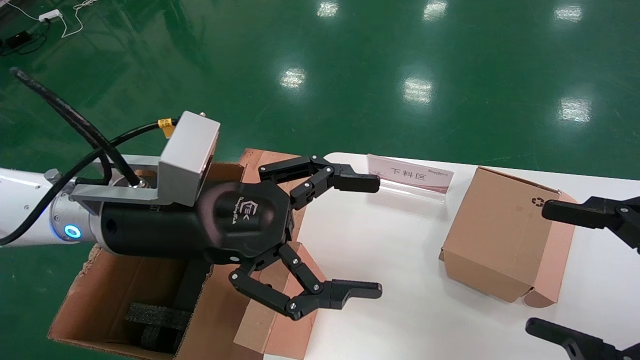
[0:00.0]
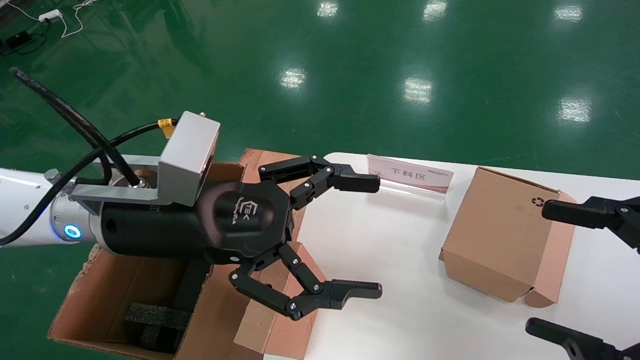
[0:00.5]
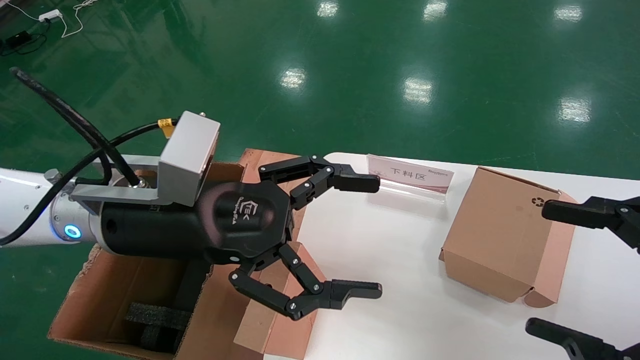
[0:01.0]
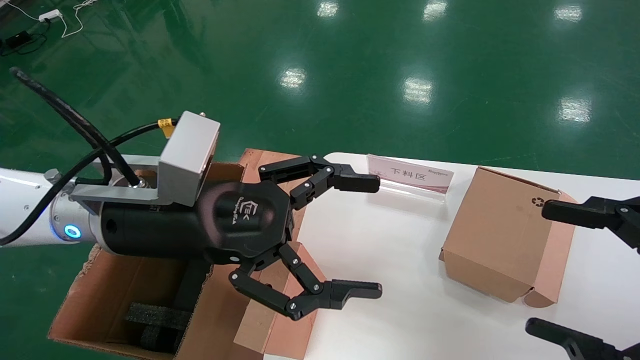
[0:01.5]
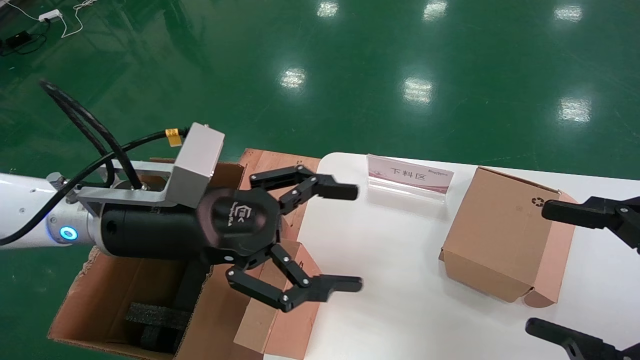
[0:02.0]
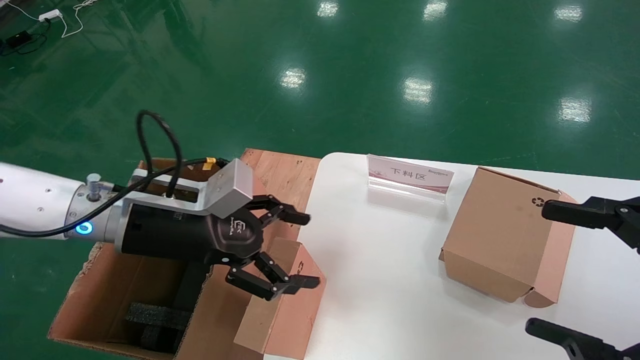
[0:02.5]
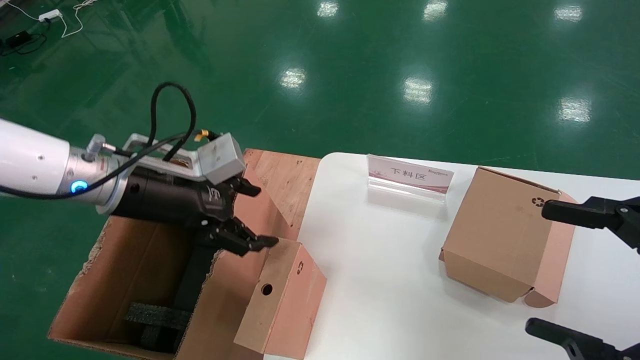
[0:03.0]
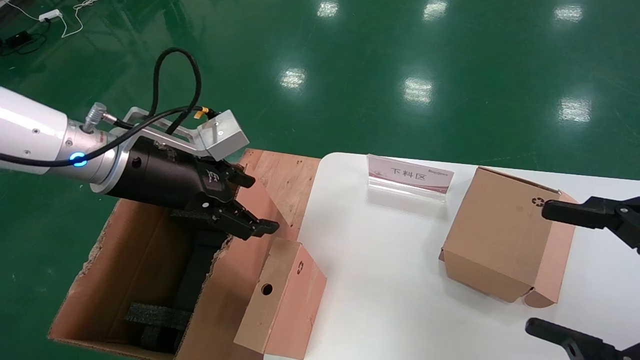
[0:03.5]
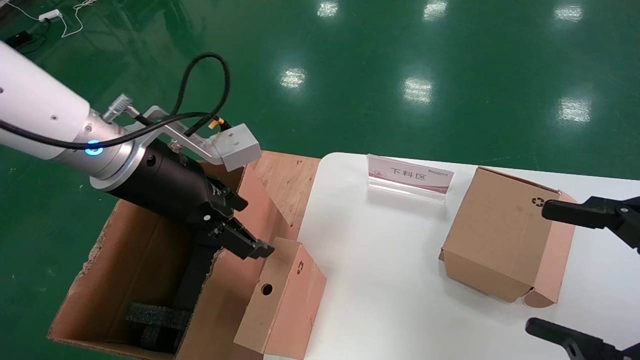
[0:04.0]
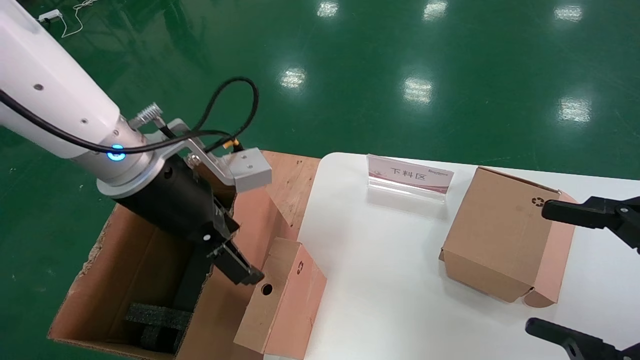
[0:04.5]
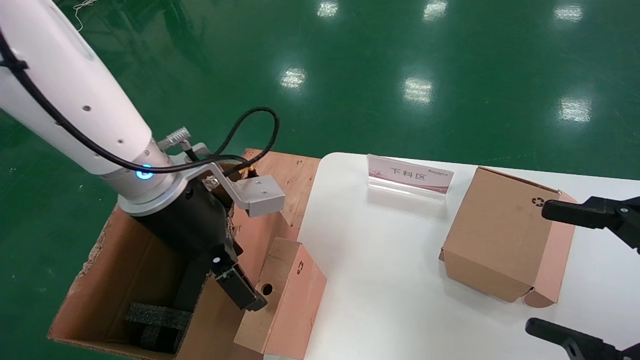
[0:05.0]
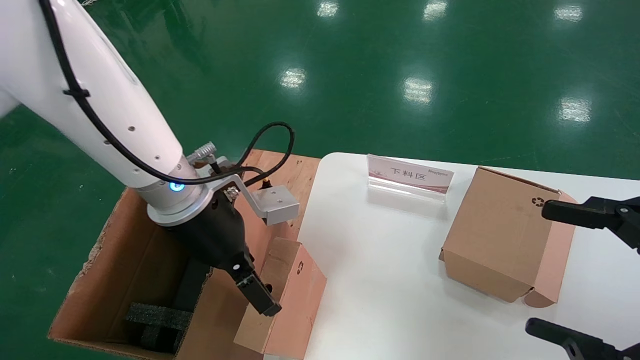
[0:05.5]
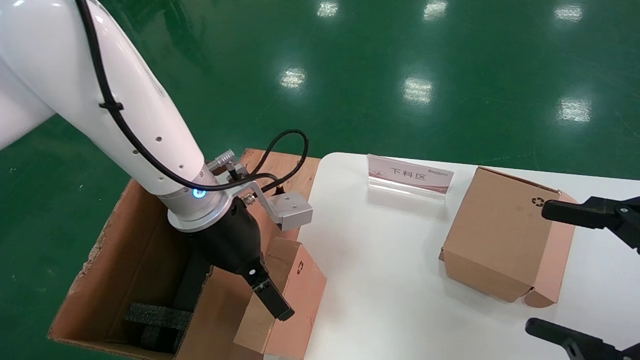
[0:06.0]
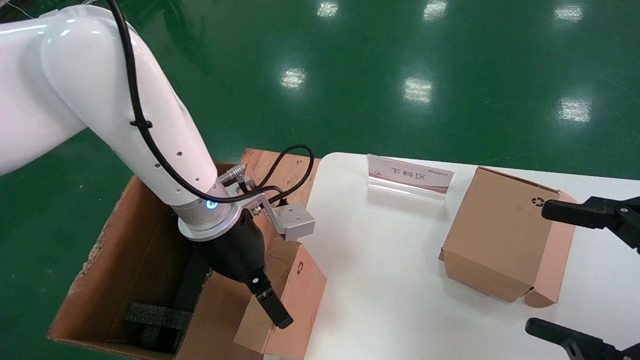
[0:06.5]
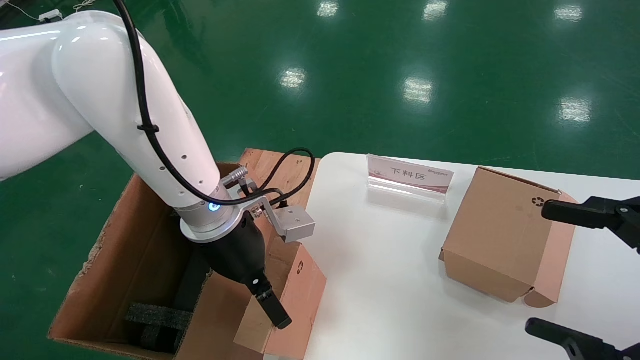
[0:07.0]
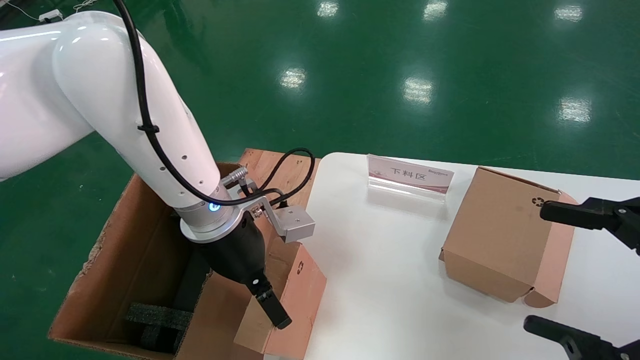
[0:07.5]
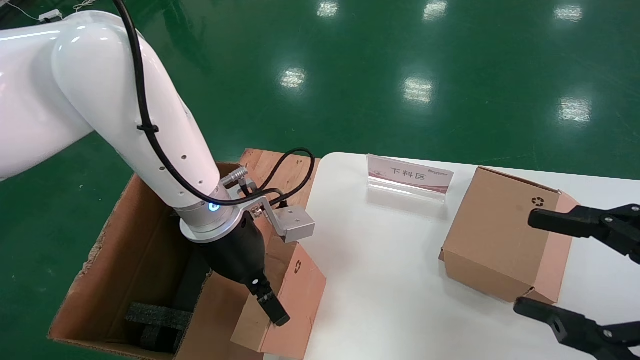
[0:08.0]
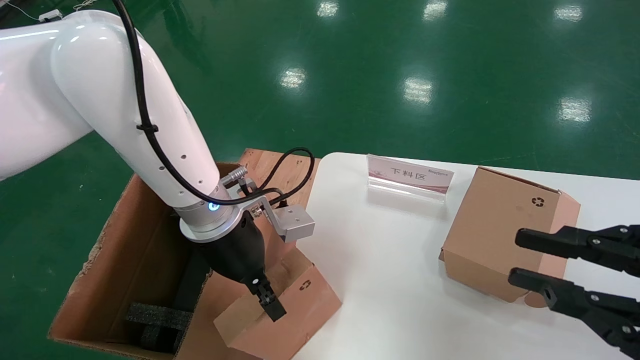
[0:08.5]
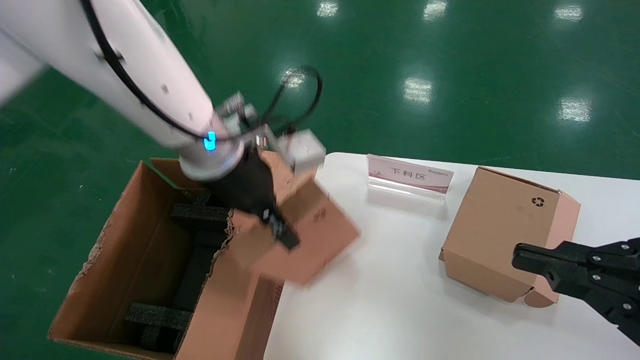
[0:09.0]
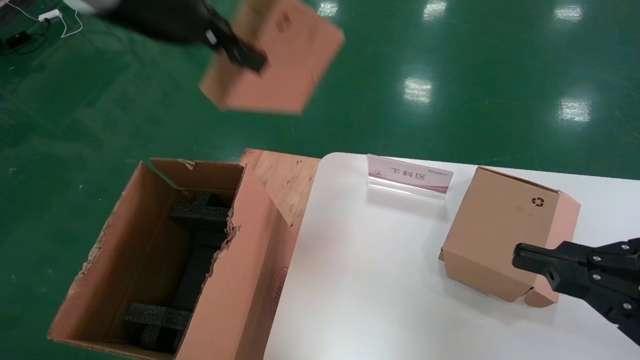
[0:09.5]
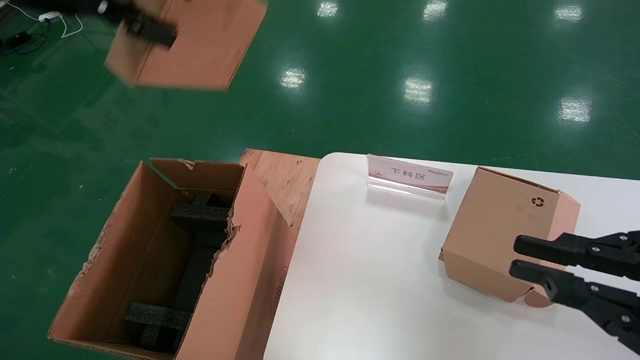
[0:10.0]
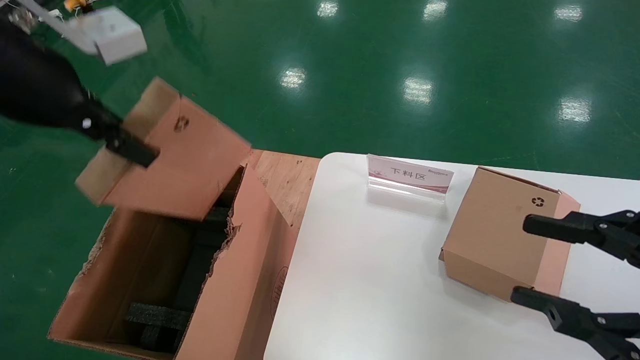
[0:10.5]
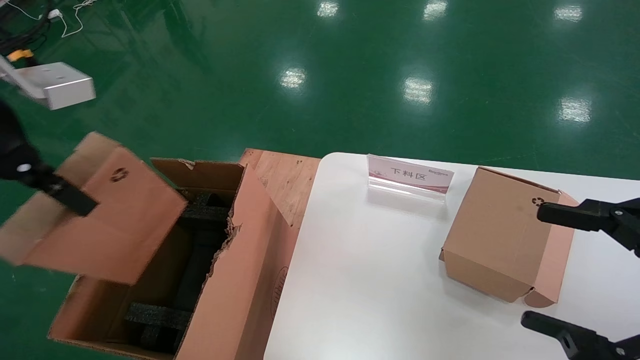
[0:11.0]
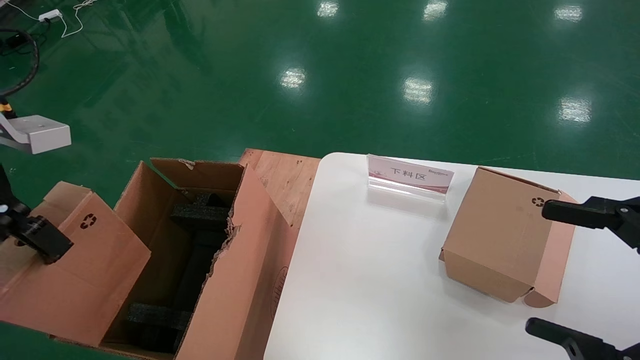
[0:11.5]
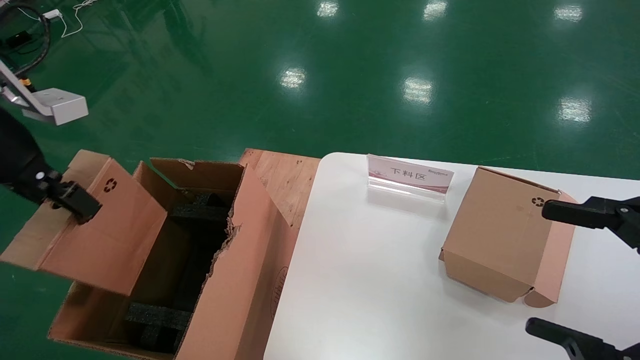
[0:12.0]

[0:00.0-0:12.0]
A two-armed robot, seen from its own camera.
Task of the whole recording: put the box on the table into the big box.
Step, 0:00.0 to 0:08.5: Grasp the paper box.
0:00.0 to 0:02.0: The grippers stay close to where they were, moving slightly.
0:02.0 to 0:04.0: The left gripper goes some 5 cm upward.
0:04.0 to 0:06.0: The left gripper goes roughly 10 cm to the right and downward.
0:06.0 to 0:08.0: The grippers make only small movements.
0:08.0 to 0:10.0: The right gripper closes its fingers. Meanwhile the left gripper shifts about 30 cm upward and to the left, and closes.
0:10.0 to 0:12.0: The right gripper opens up; the left gripper goes about 15 cm downward and to the left.

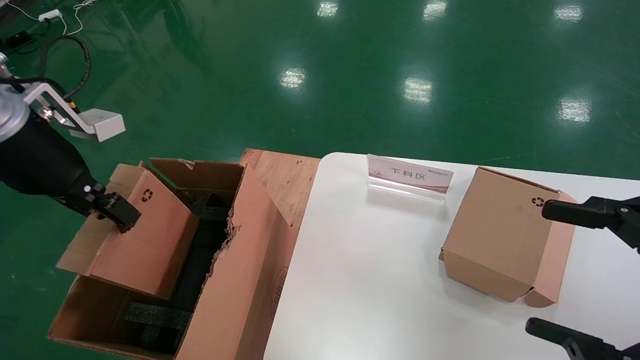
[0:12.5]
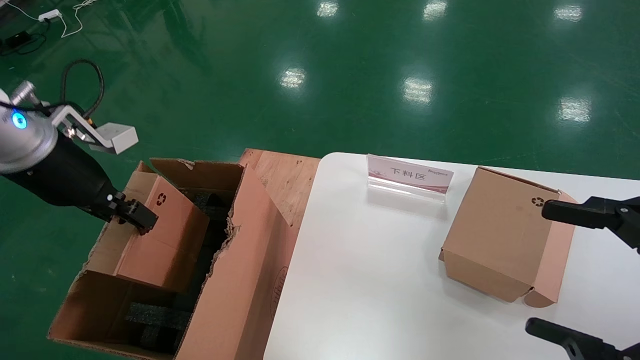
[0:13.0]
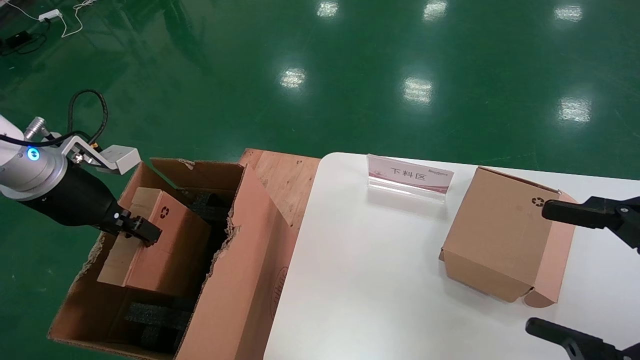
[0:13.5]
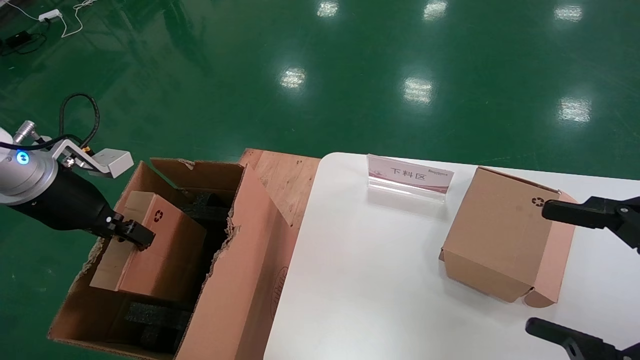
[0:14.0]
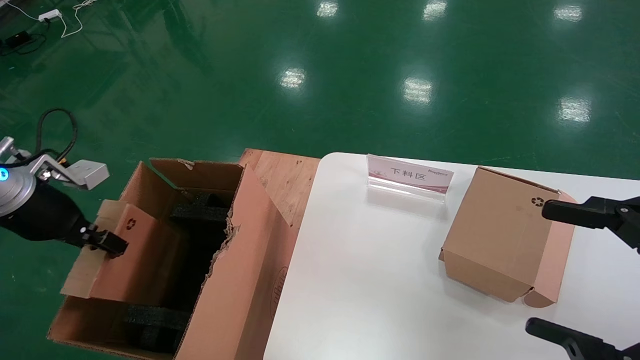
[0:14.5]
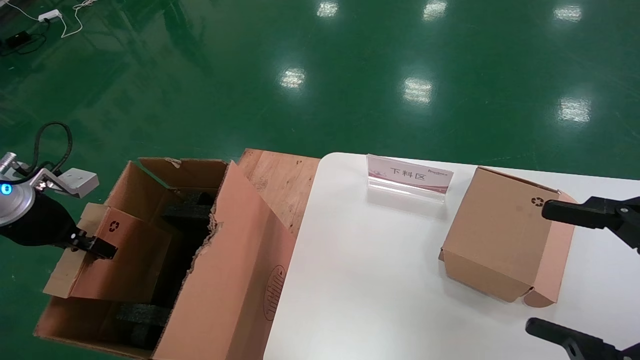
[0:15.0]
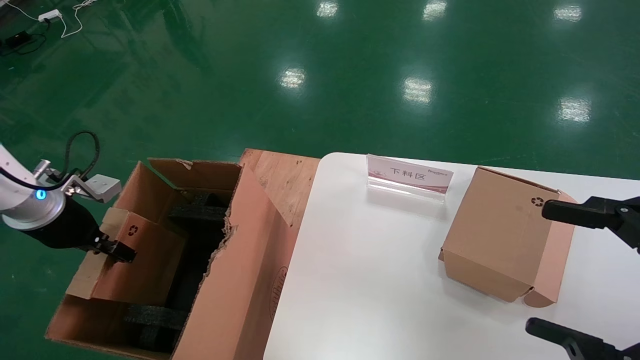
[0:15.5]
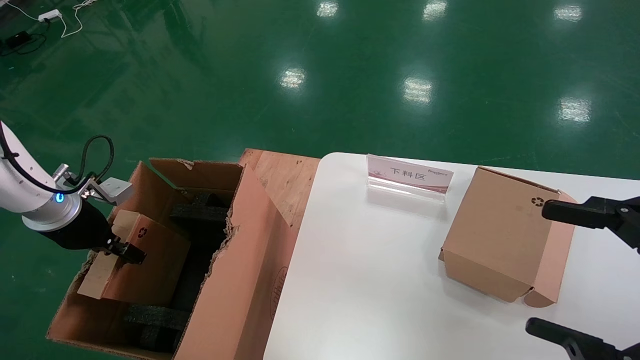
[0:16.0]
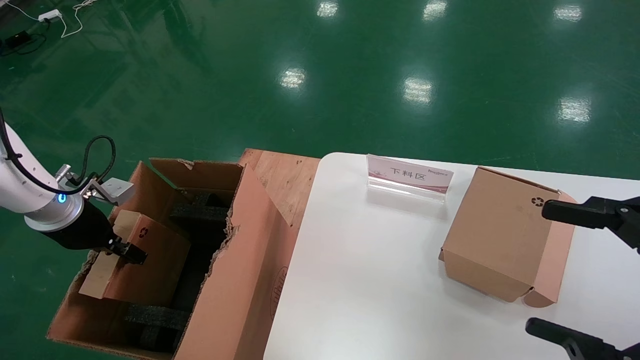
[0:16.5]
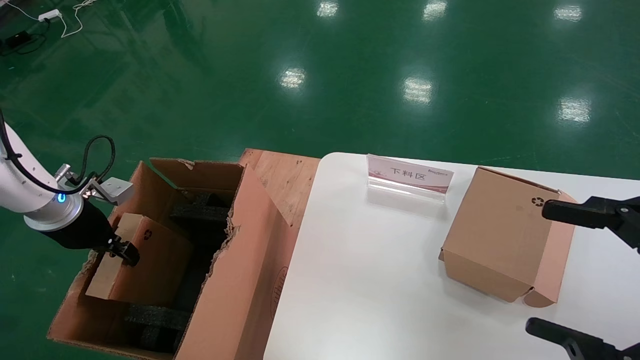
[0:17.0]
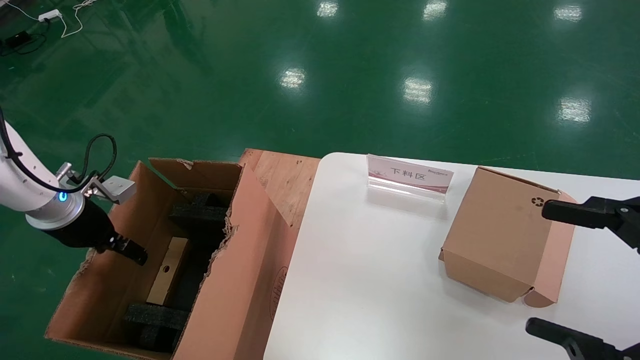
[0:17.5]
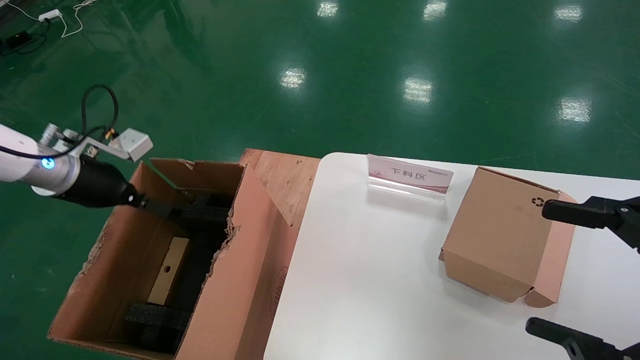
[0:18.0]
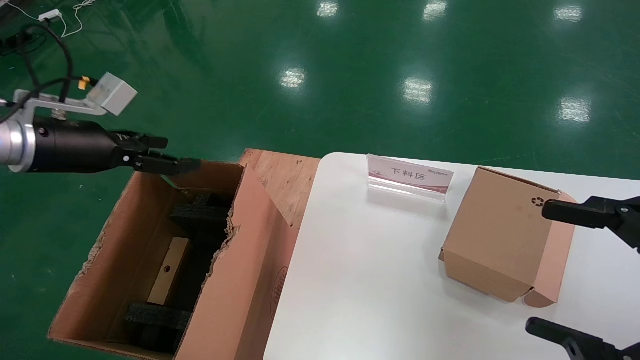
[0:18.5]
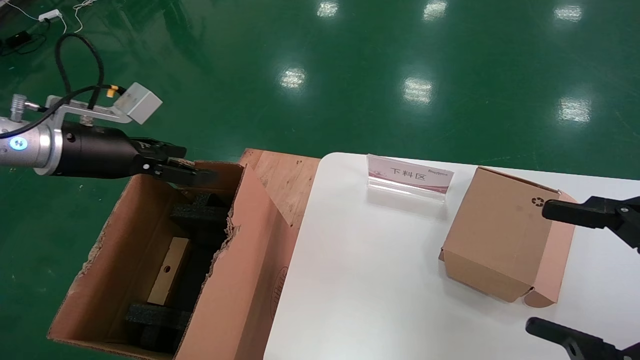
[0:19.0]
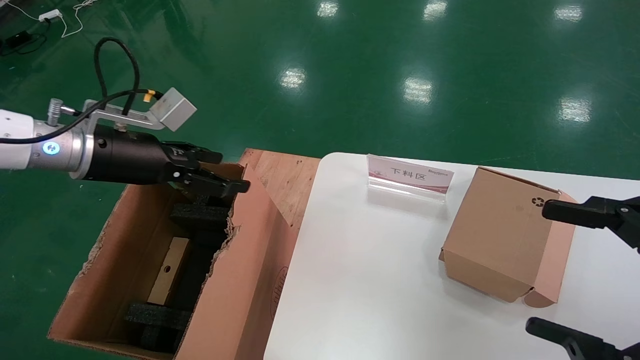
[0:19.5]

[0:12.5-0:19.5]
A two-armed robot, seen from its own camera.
Task of the whole recording: put the box on the table into the big box.
Step, 0:12.5 to 0:17.0: Place the paper box in the another big box.
0:12.5 to 0:14.5: The left gripper travels downward and to the left by roughly 15 cm.
0:14.5 to 0:16.0: The left gripper shifts roughly 5 cm downward and forward.
0:16.0 to 0:17.5: The left gripper opens its fingers.
0:17.5 to 0:19.5: The left gripper moves to the right and upward, approximately 15 cm, and opens its fingers.
